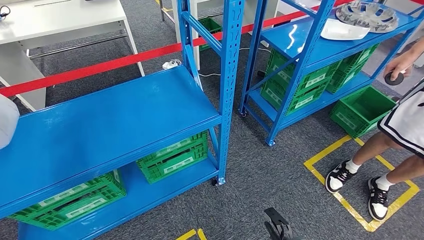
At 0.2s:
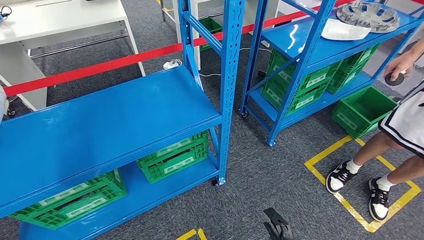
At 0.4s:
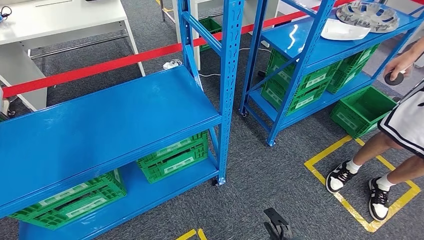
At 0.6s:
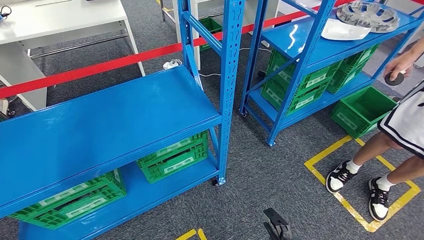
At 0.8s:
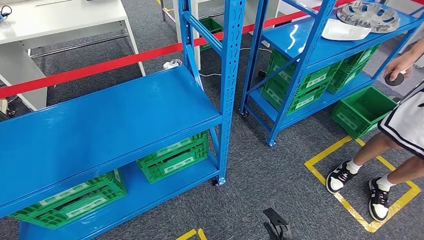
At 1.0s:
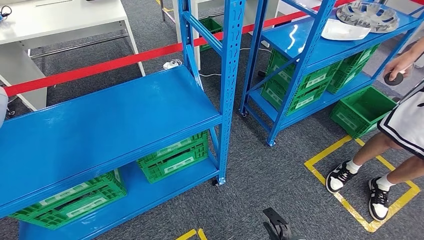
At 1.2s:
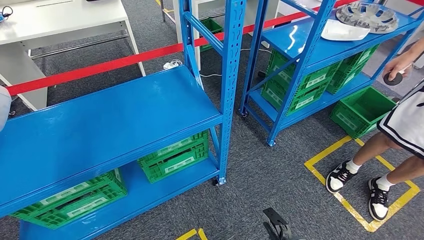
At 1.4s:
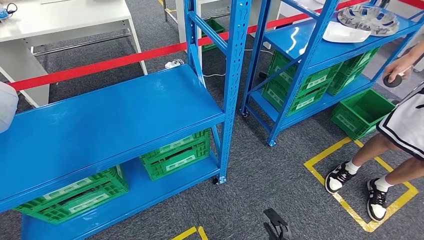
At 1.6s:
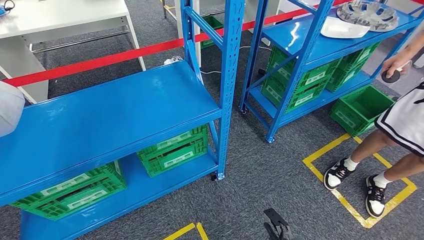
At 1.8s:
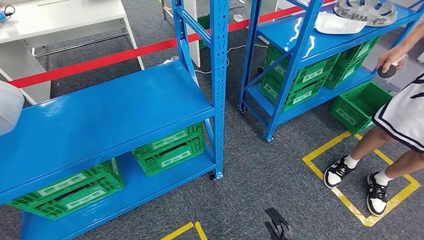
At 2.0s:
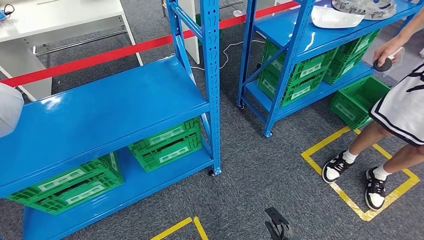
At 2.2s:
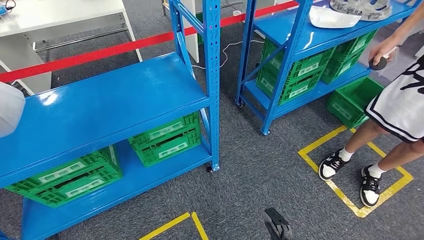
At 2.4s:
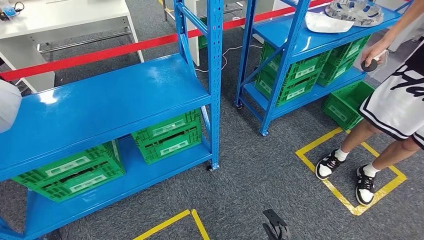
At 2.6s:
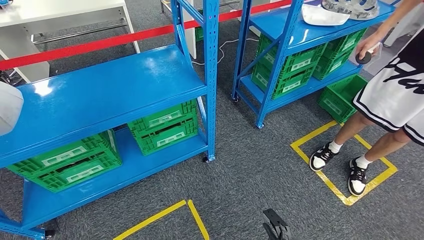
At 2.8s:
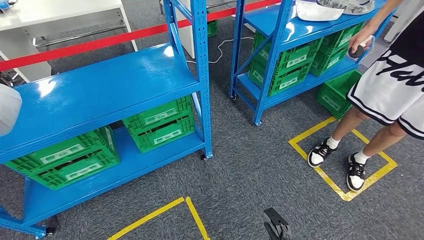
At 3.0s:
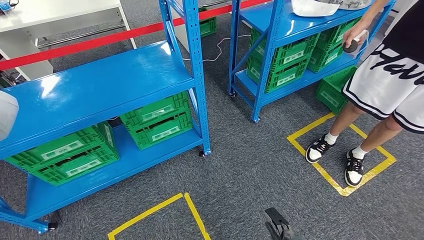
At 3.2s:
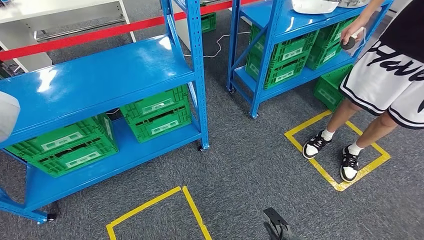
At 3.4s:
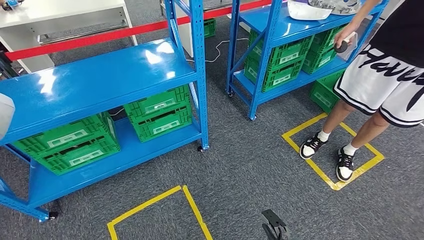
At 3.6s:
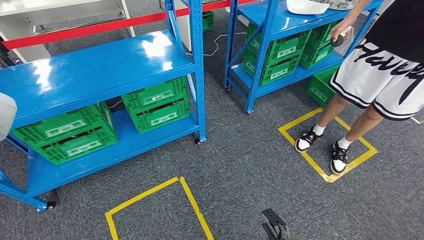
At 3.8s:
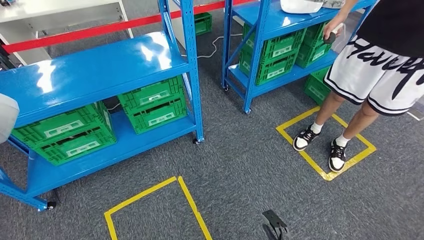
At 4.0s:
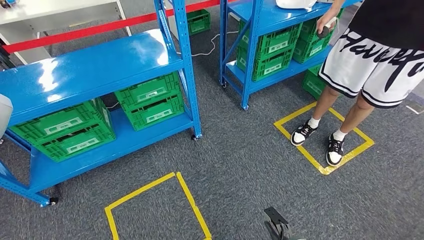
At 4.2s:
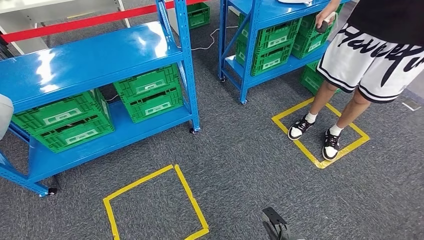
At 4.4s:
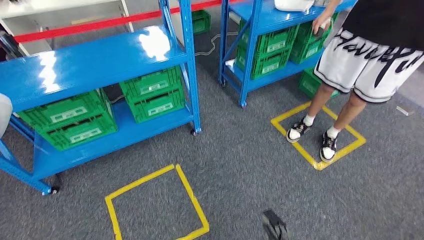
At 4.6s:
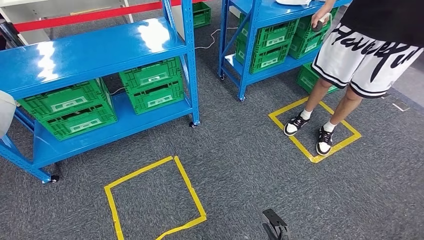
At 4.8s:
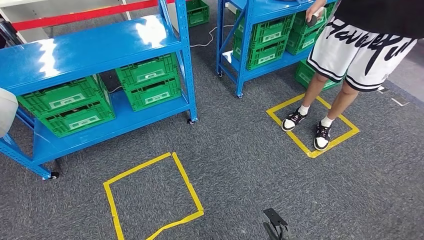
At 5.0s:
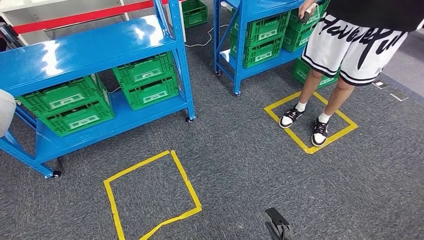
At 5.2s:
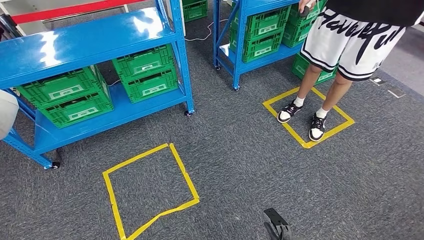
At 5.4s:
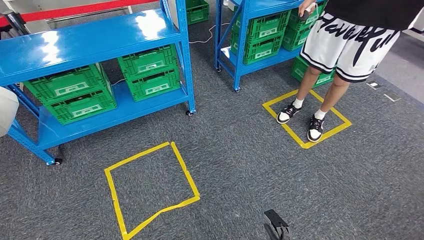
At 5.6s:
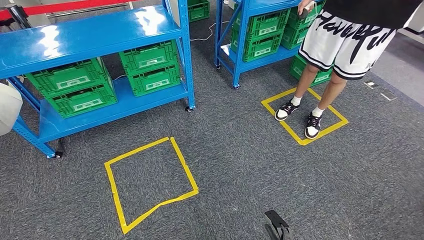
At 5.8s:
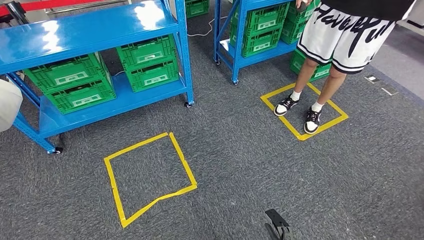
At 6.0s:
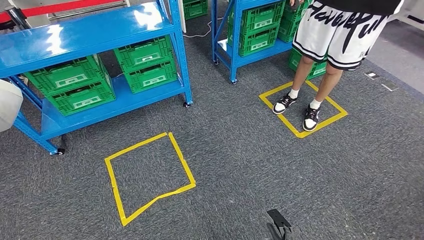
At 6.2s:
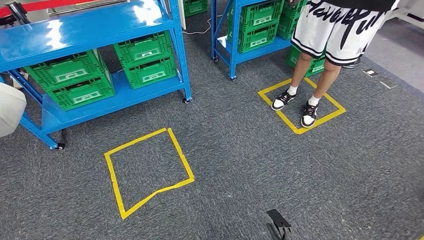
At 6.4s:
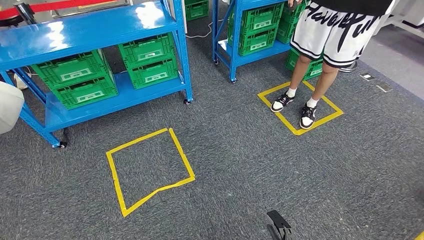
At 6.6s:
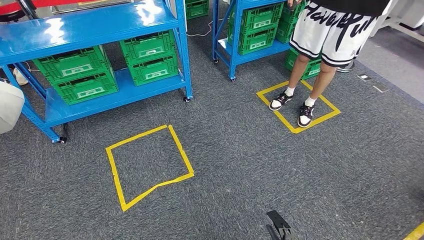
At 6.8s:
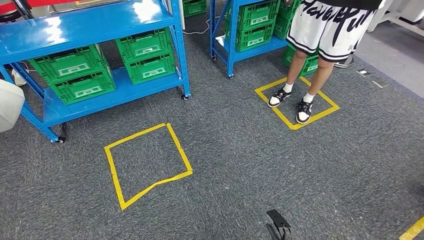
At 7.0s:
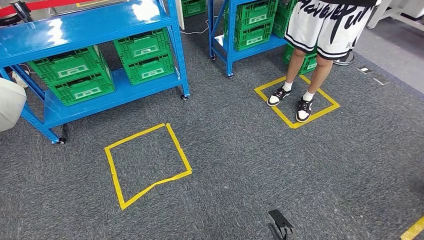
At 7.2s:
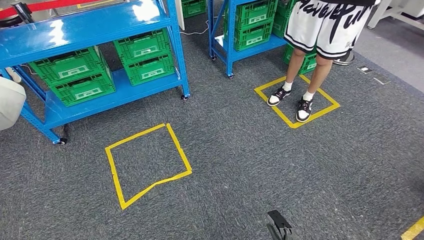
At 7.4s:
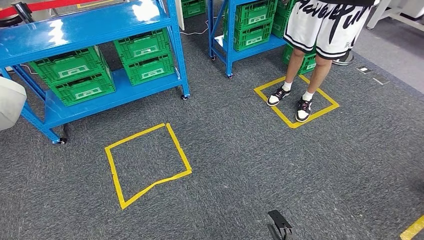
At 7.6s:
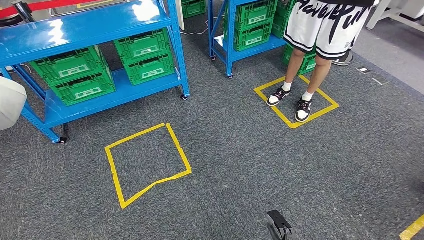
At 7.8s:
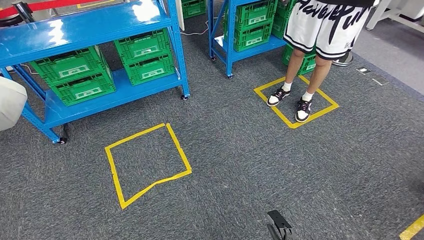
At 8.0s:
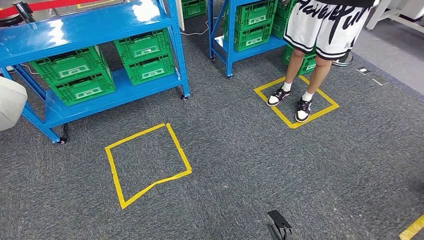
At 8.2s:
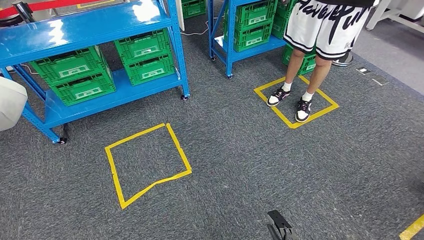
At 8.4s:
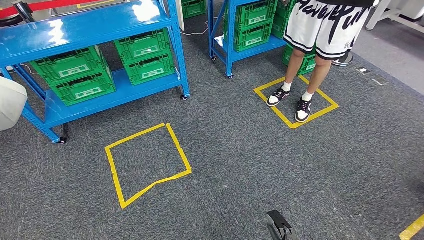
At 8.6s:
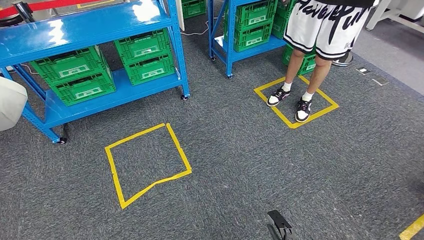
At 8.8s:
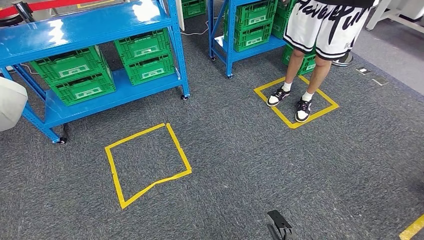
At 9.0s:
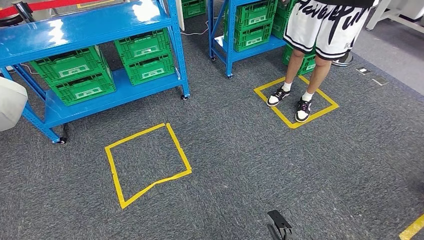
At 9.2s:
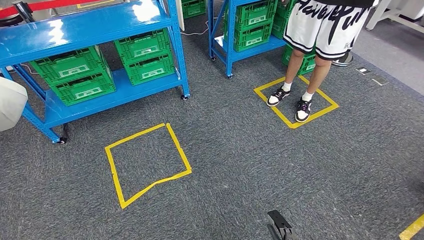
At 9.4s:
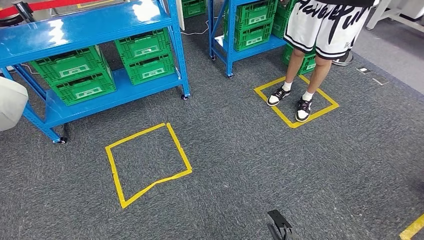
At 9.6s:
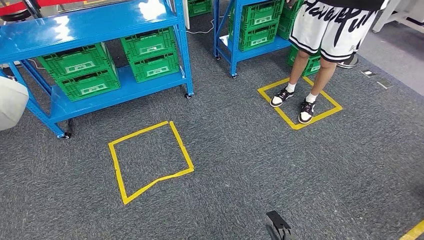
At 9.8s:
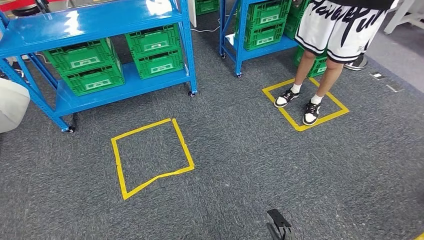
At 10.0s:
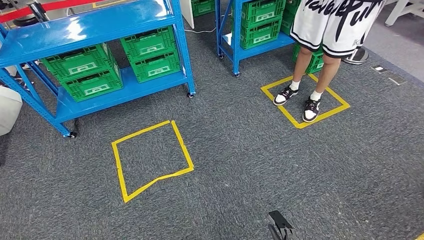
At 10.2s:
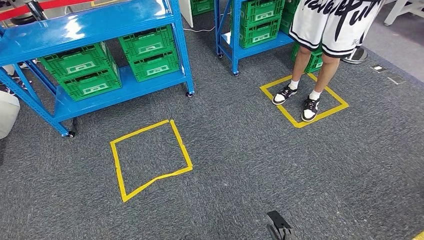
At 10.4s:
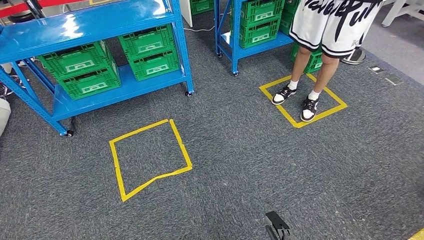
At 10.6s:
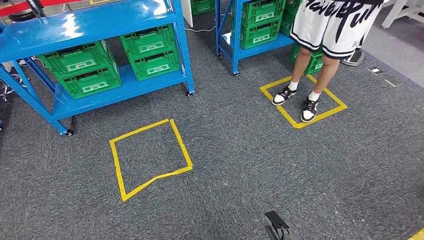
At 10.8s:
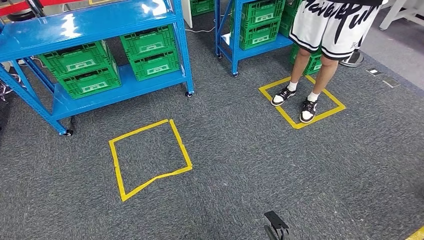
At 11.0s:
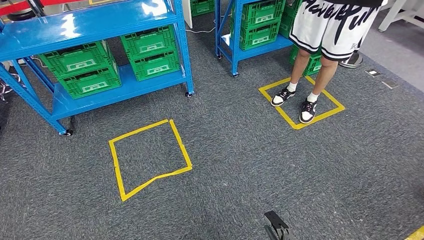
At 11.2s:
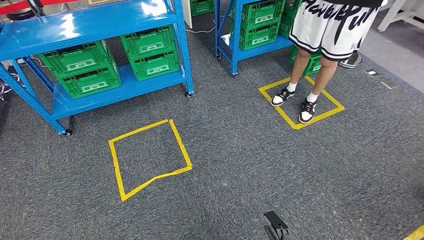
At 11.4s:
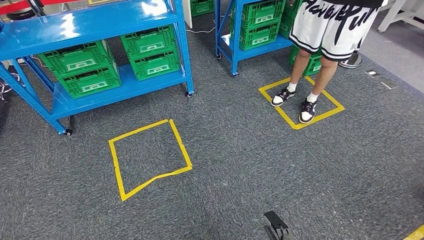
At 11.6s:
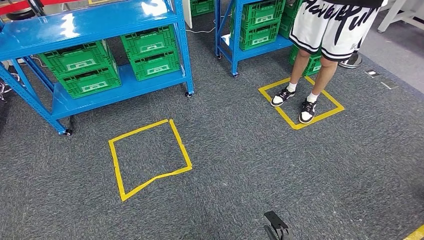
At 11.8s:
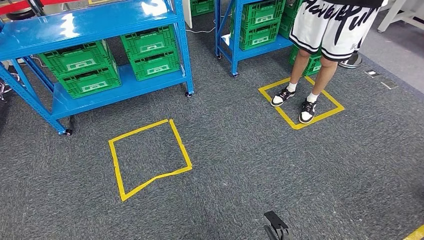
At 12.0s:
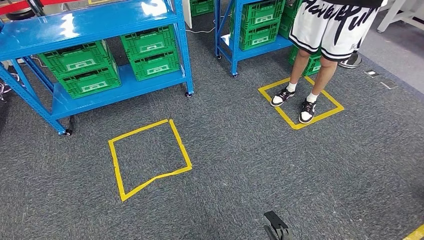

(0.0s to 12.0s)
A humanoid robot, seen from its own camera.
7.6s - 9.0s: Both hands stay put.
10.4s - 12.0s: The left hand changes place by some 5 cm.

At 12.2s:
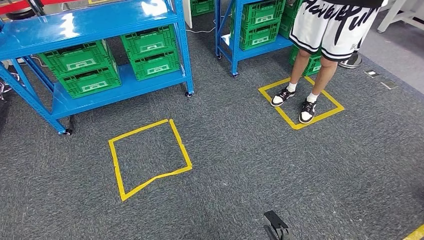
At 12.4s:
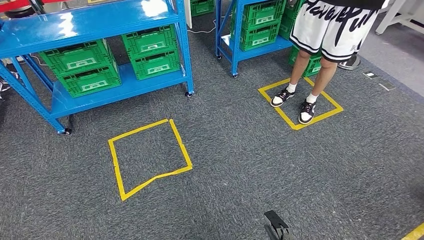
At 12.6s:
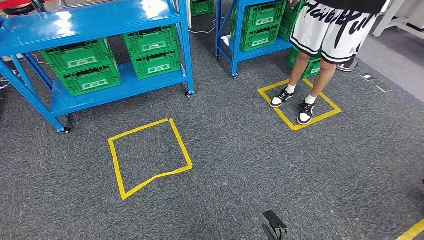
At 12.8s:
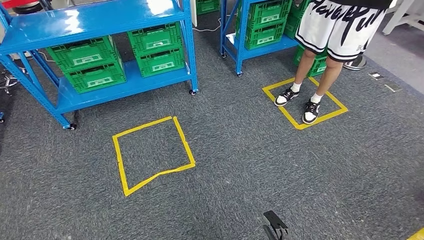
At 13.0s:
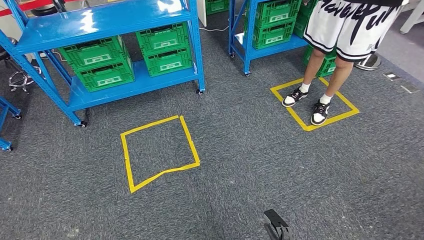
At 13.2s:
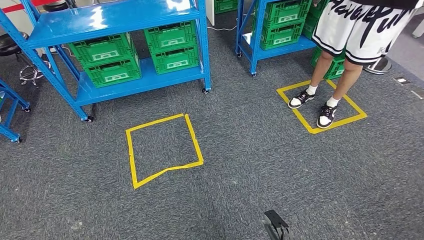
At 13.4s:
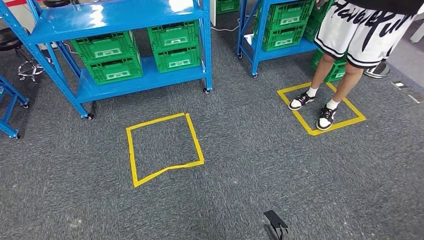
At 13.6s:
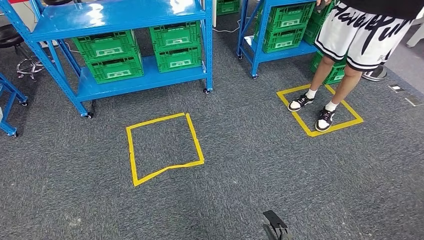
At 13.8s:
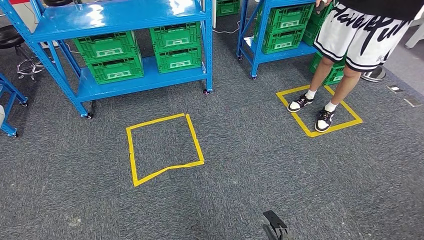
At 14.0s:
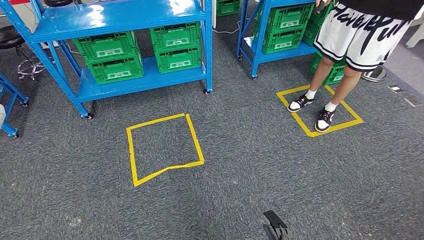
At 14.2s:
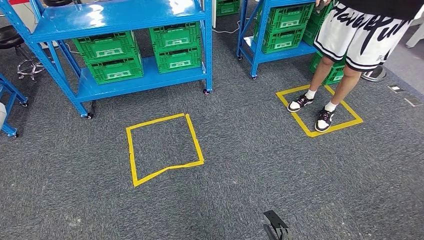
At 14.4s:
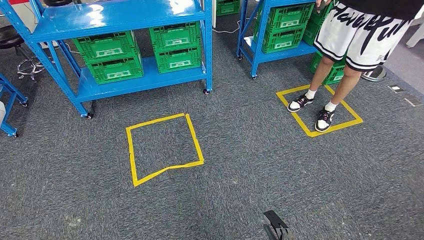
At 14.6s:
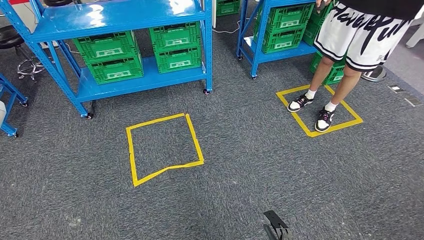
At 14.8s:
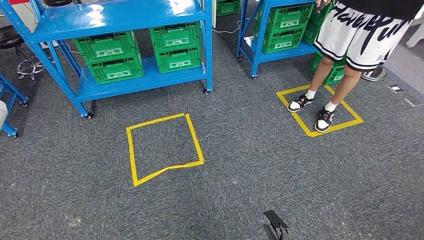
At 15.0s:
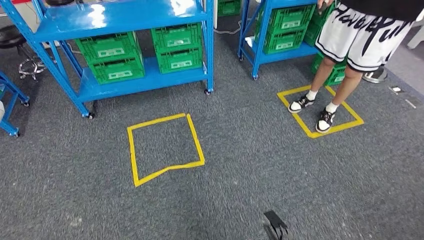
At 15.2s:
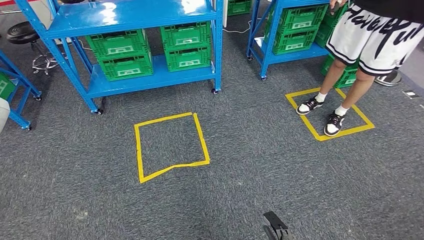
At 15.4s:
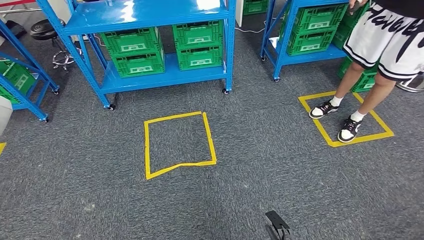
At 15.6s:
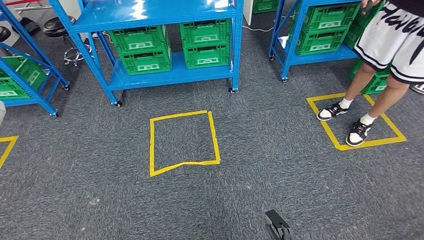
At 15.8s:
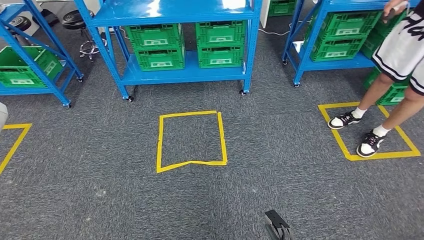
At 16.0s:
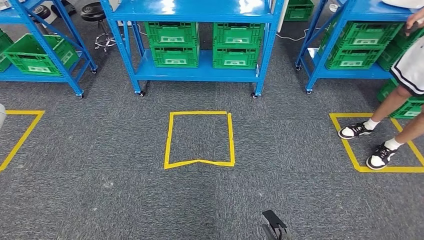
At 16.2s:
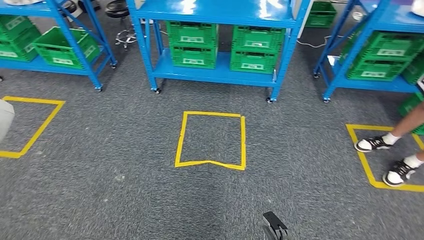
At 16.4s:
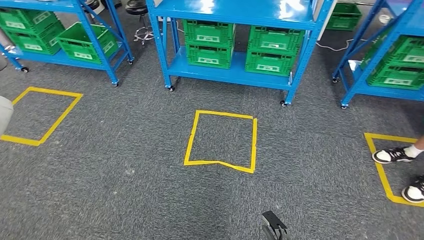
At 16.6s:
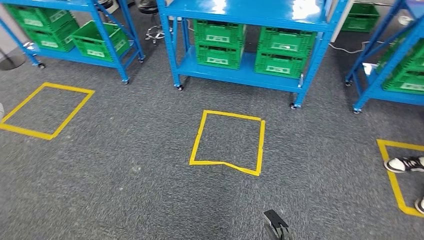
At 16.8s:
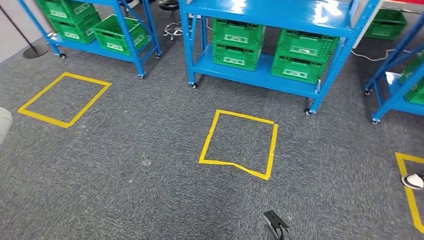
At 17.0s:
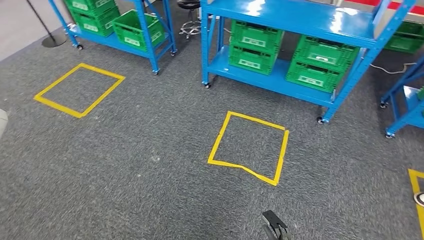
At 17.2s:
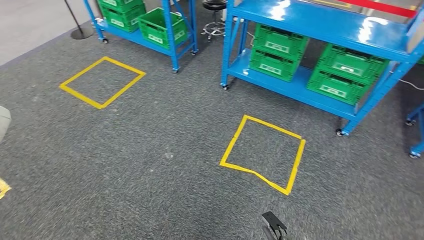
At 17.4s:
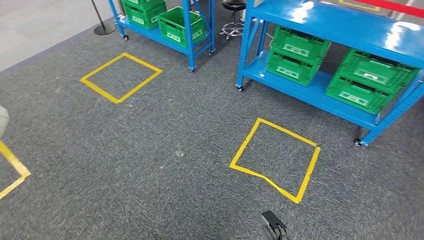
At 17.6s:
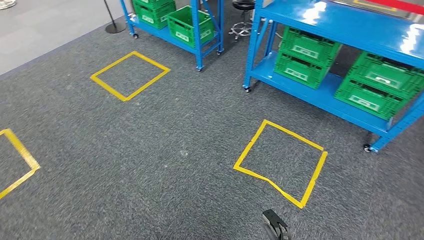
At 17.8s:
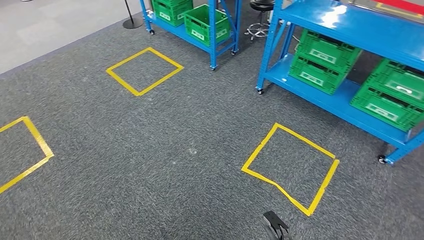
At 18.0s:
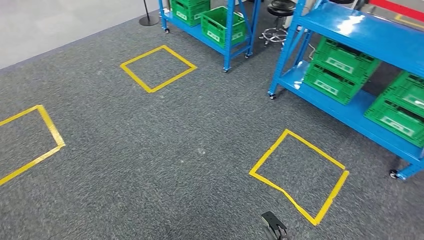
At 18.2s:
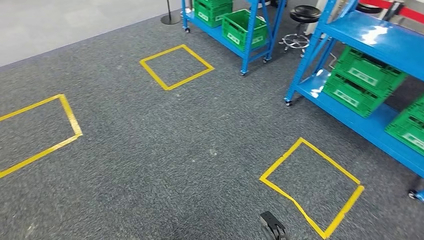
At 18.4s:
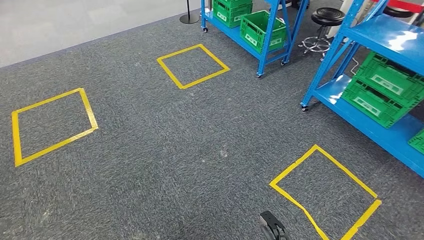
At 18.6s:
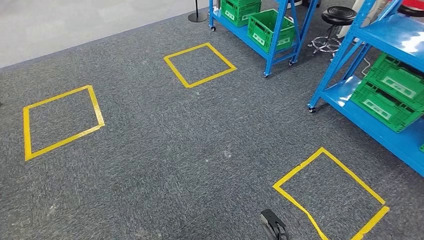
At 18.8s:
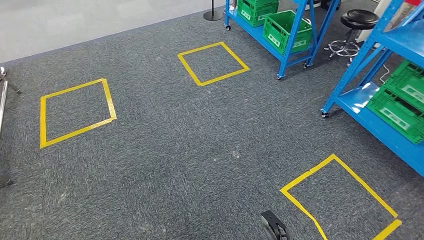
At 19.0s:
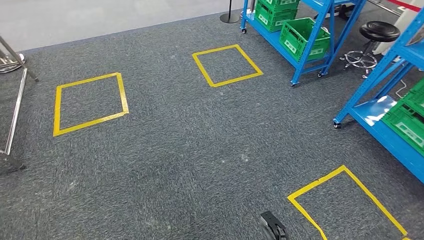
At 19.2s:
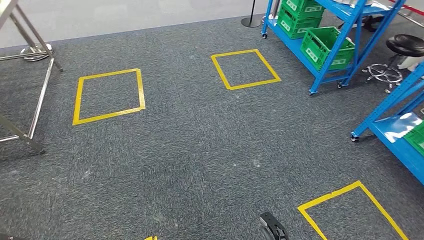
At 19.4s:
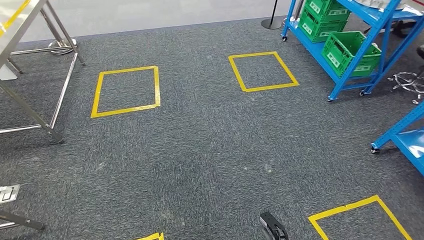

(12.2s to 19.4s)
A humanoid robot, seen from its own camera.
13.6s - 15.0s: The two hands keep their place.
